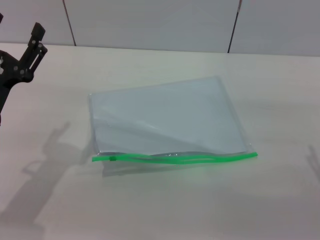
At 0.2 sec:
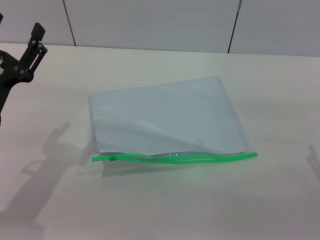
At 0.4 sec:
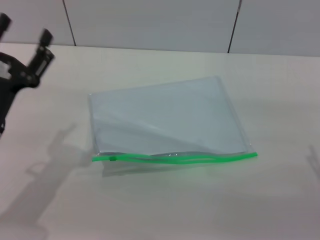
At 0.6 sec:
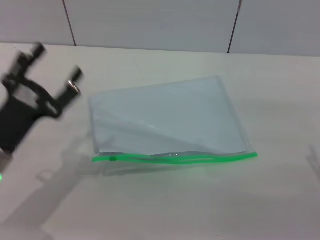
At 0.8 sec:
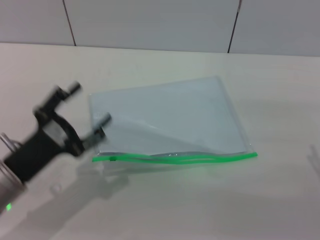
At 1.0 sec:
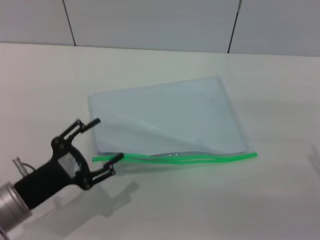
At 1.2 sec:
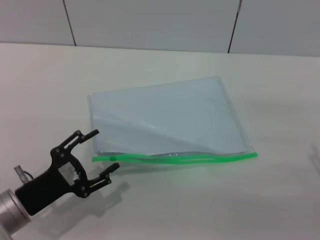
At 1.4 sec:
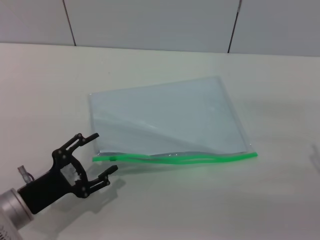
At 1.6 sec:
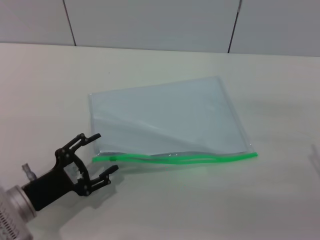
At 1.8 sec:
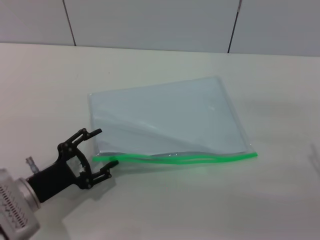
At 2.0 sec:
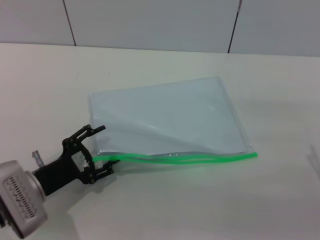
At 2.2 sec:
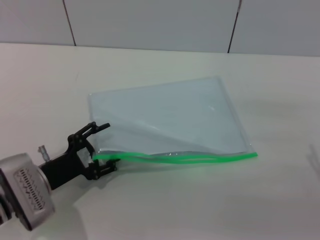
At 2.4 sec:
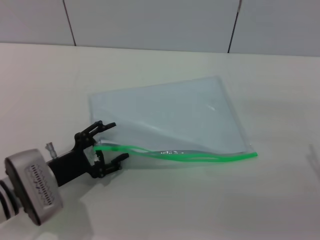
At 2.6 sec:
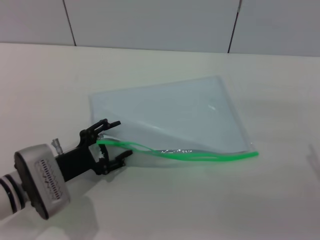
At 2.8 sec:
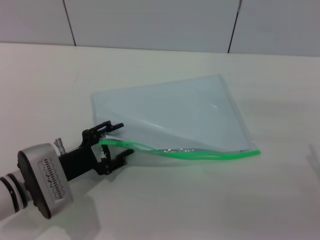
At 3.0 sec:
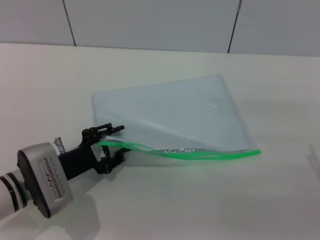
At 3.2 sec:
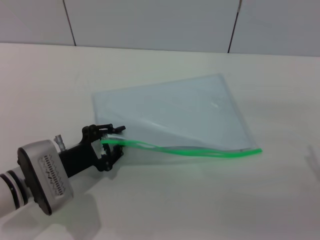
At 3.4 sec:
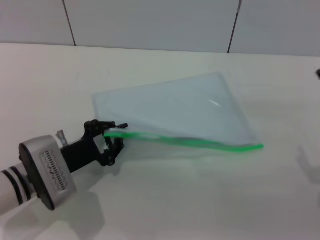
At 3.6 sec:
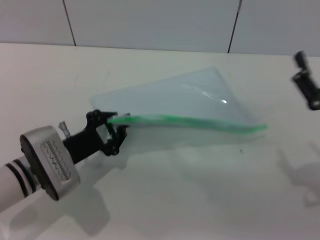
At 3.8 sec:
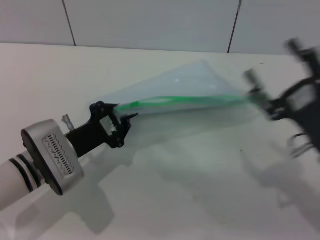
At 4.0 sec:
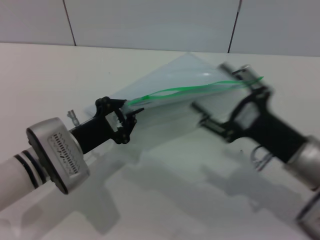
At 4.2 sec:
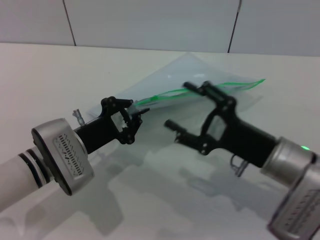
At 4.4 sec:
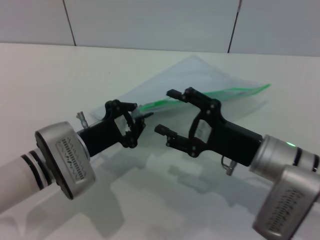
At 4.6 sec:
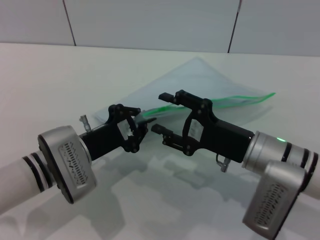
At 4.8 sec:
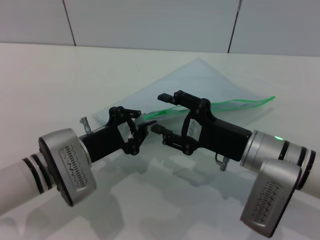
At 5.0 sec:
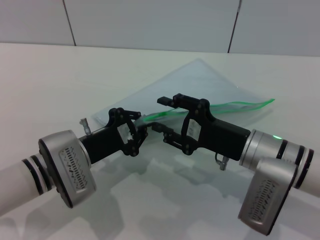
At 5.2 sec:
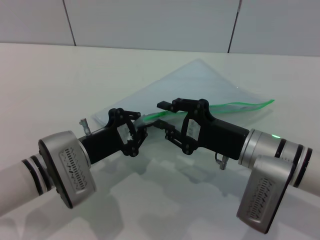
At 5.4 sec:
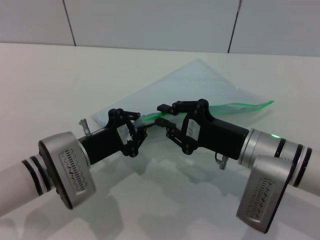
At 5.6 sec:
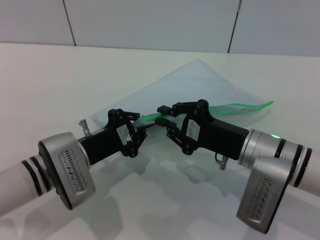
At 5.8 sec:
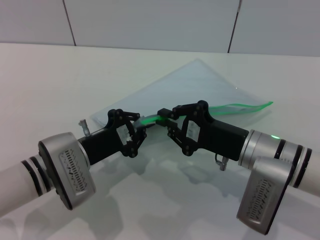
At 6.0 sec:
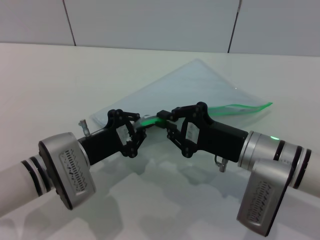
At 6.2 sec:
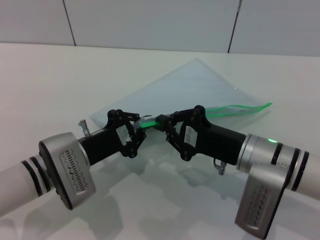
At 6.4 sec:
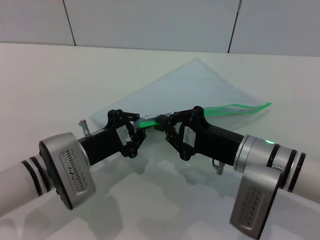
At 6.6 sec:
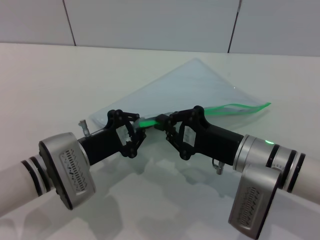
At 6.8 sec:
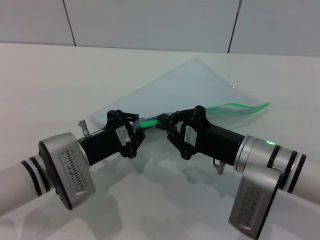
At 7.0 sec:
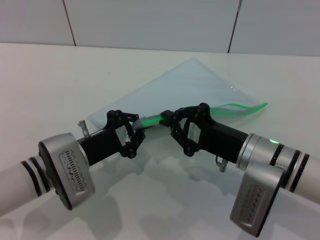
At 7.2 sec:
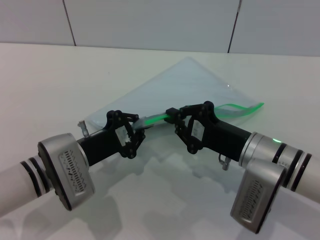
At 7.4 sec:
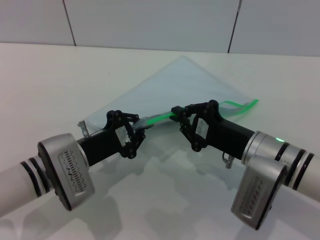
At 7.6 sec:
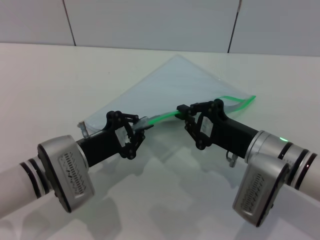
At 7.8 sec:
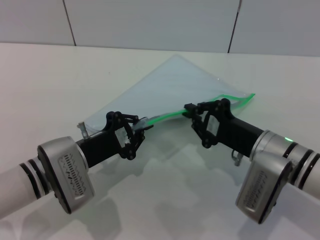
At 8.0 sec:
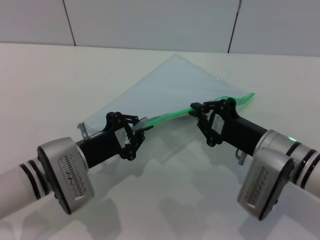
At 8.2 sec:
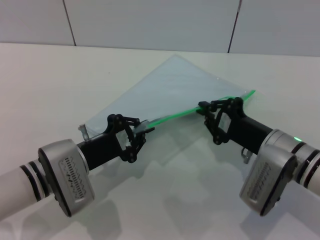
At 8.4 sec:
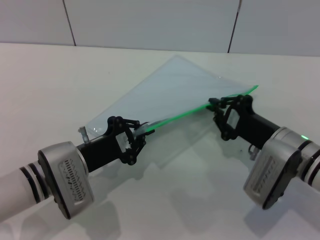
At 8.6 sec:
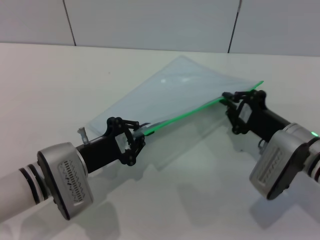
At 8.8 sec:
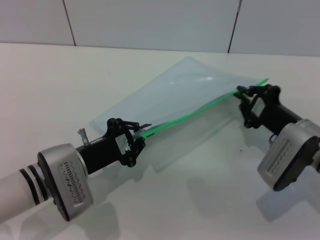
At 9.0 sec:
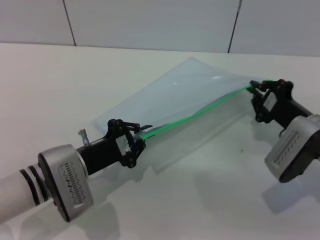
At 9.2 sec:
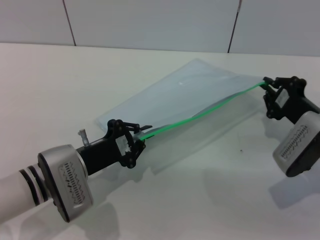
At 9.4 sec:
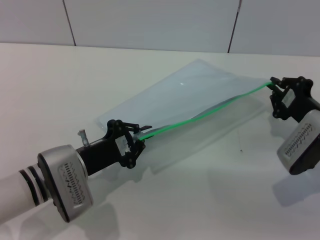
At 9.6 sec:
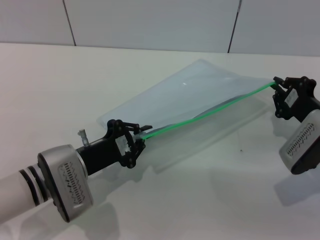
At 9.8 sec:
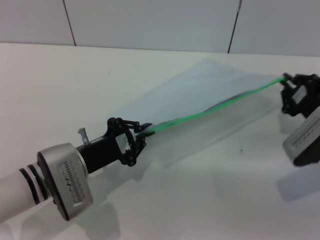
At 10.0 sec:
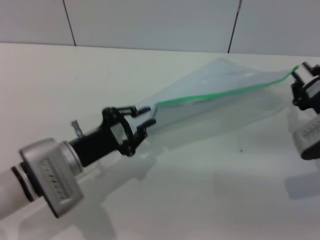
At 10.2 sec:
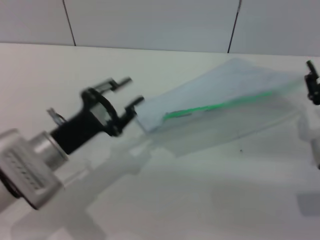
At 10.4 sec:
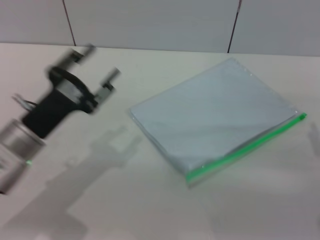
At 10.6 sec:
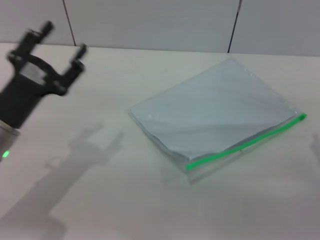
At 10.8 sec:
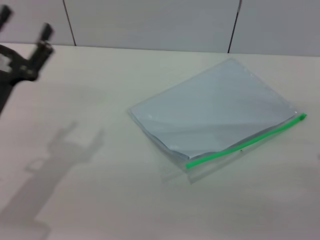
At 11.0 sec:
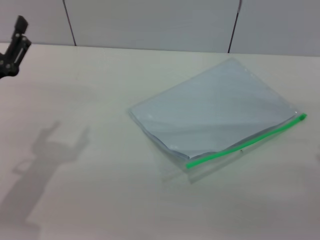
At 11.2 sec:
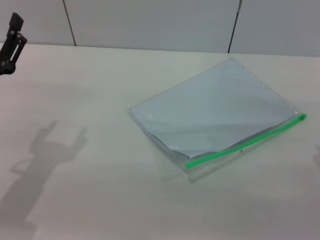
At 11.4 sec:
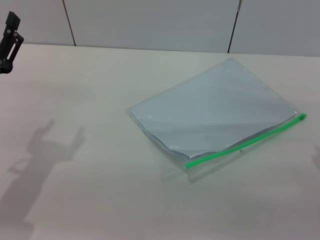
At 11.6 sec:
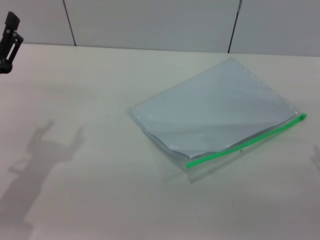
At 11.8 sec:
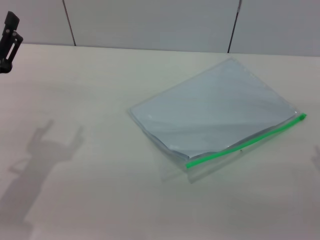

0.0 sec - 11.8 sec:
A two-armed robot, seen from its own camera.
Step, 0.0 sec - 4.0 sec: Pick up the transparent plastic bag with the left gripper.
Step, 4.2 sec - 9.6 sec: Pulling up the zipper on the transparent plastic bag with the right gripper to close it.
Step, 9.8 sec - 10.8 sec: Place the transparent plastic bag.
0.0 sec - 1.4 sec: The left gripper shifts roughly 10 cm downward and backward.
1.4 sec - 3.0 sec: The left gripper travels forward by roughly 5 cm.
3.0 sec - 4.4 sec: The left gripper moves some 5 cm, and closes its fingers. The right gripper heads to the left, covering about 10 cm.
4.4 sec - 6.0 sec: The right gripper closes up.
6.0 sec - 7.4 sec: The grippers stay close to where they were, moving slightly.
7.4 sec - 8.8 sec: The right gripper moves to the right, approximately 5 cm.
8.8 sec - 10.4 sec: The left gripper changes place by roughly 5 cm, and opens its fingers. Meanwhile the right gripper heads to the right and backward, covering about 10 cm, and opens its fingers.
10.4 sec - 11.8 sec: The right gripper opens its fingers; the left gripper heads to the left, covering about 5 cm, and opens its fingers.
